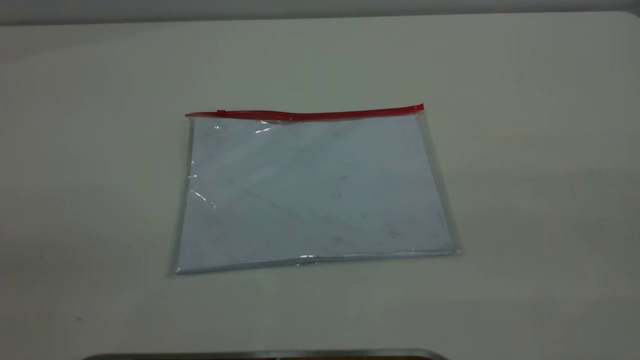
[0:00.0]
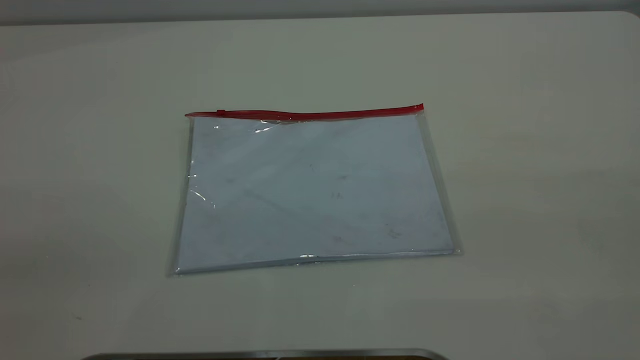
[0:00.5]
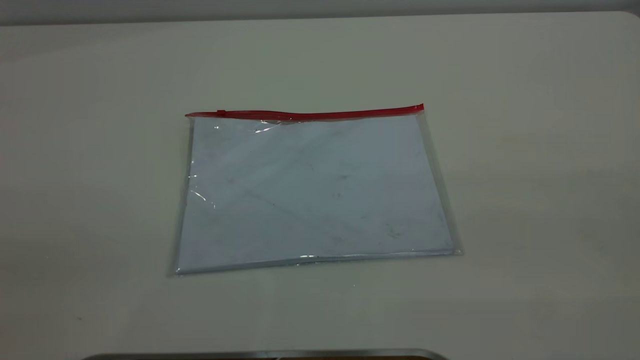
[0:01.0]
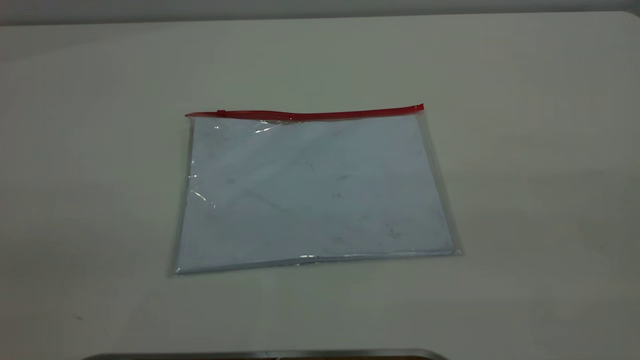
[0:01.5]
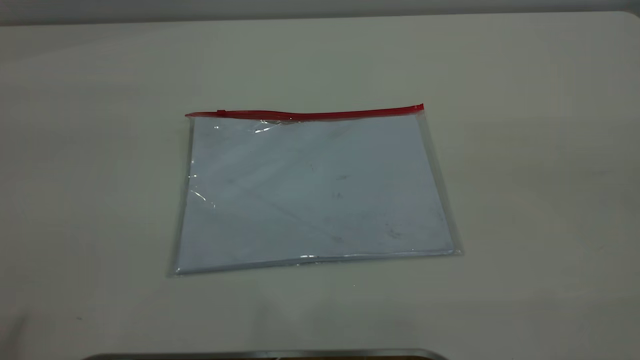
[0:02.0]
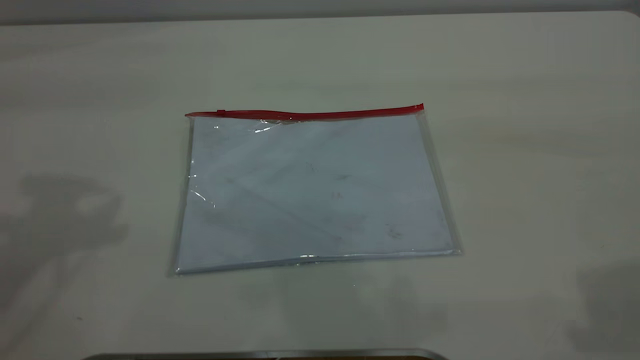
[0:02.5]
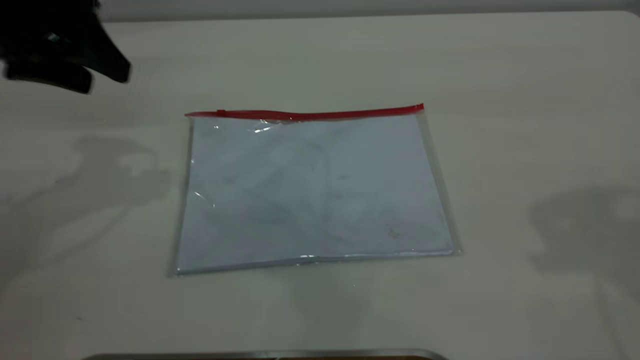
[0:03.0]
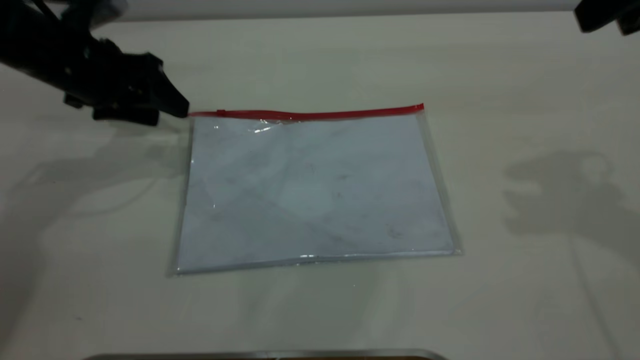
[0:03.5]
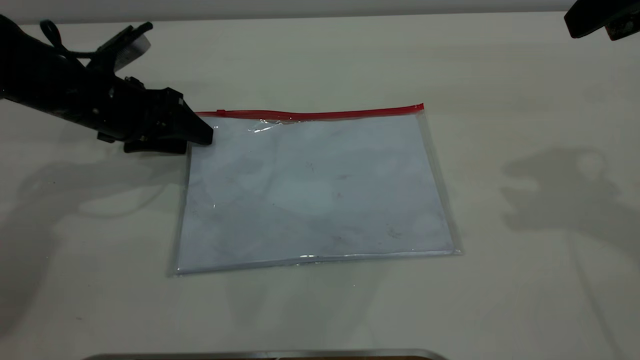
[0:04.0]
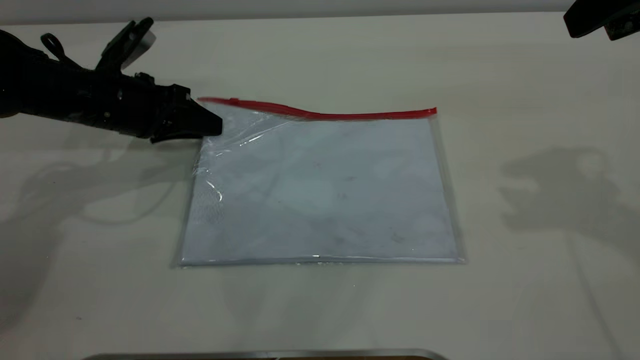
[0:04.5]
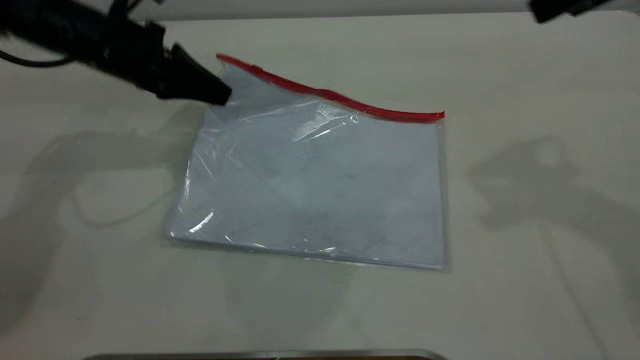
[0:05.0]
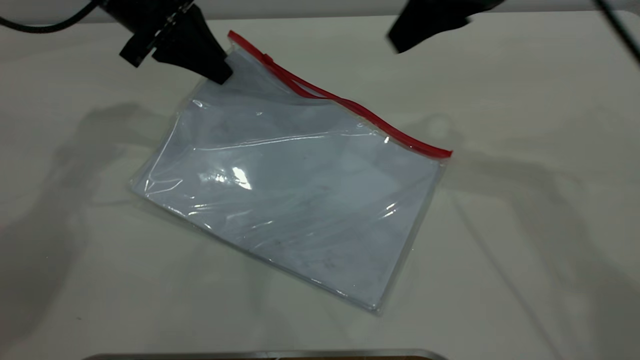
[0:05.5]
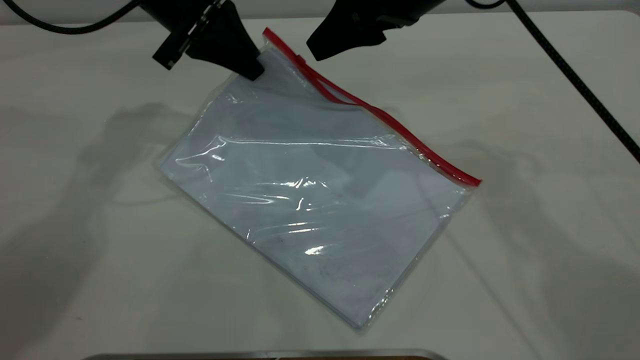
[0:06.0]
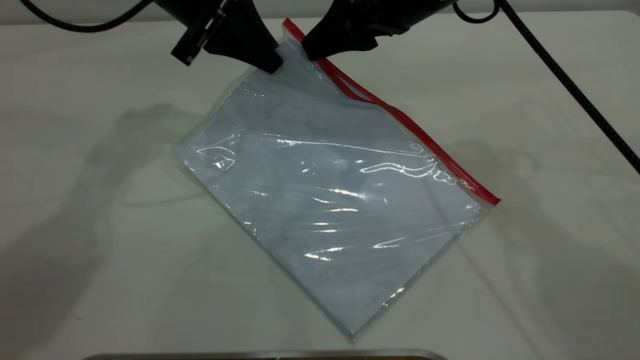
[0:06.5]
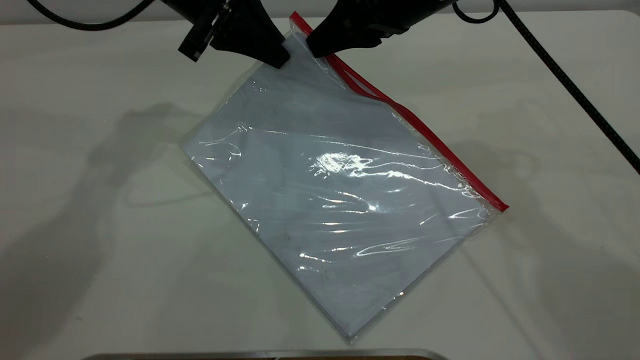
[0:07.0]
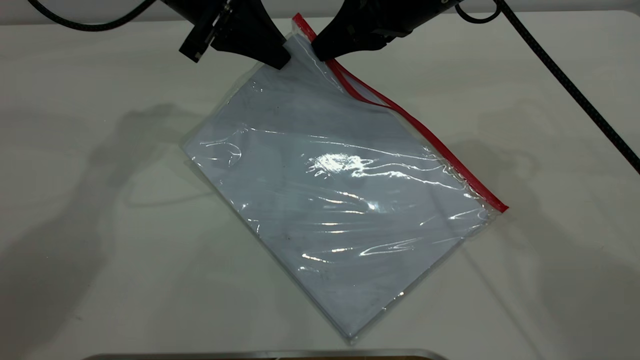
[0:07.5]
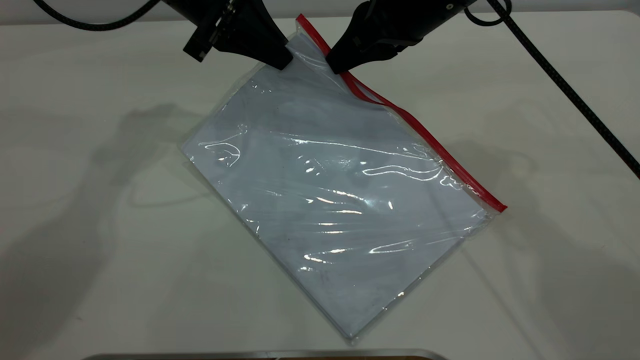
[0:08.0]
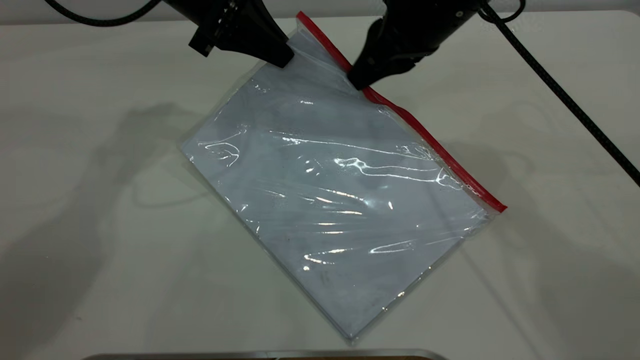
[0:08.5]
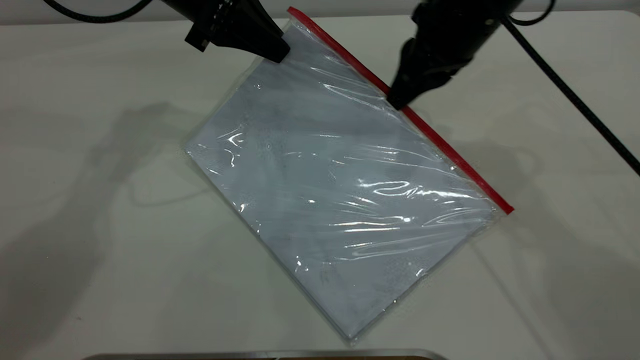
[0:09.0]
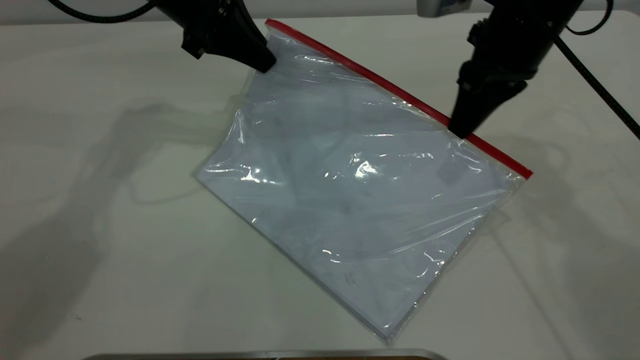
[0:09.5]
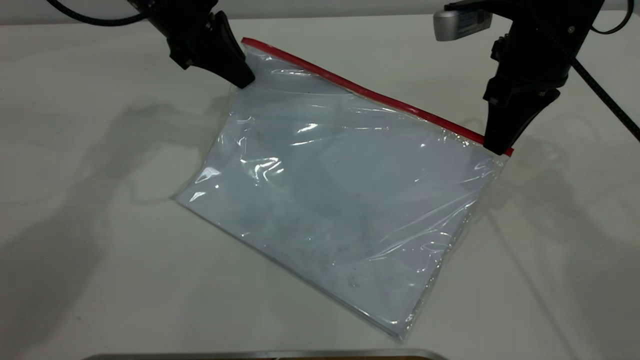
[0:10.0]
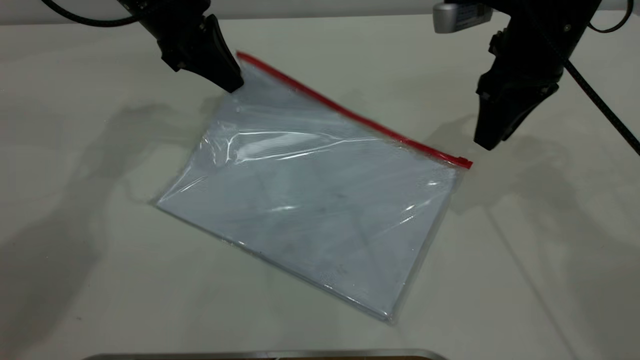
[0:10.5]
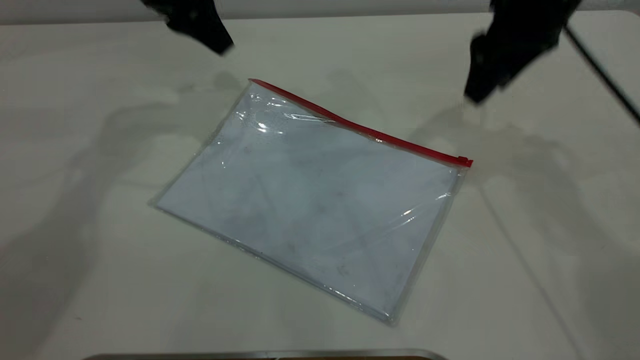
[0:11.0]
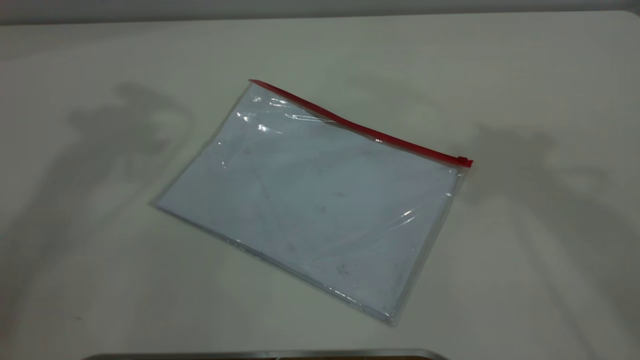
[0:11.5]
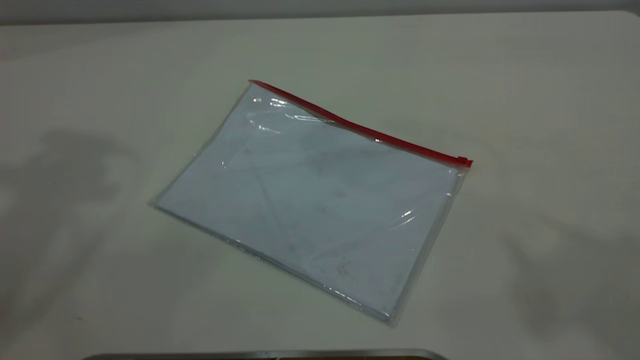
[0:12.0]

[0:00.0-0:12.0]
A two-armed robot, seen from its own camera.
Step, 0:00.0 to 0:04.5: Pick up the transparent plastic bag with the left gripper.
Step, 0:05.0 to 0:10.0: Pulling up the zipper on the transparent plastic bag with the right gripper to close it.
0:02.0 to 0:04.0: The left gripper is displaced downward and forward by roughly 50 cm; the right gripper is displaced forward and downward by approximately 30 cm.
0:04.0 to 0:06.0: The left gripper moves upward, to the right and forward, approximately 15 cm, and closes up. The right gripper moves to the left, forward and downward, roughly 20 cm.
0:06.0 to 0:08.0: The right gripper closes its fingers.
0:08.0 to 0:10.0: The right gripper goes roughly 10 cm to the right.
0:10.0 to 0:12.0: The grippers both shift upward and backward by some 40 cm. The left gripper opens up. Meanwhile the right gripper opens.
